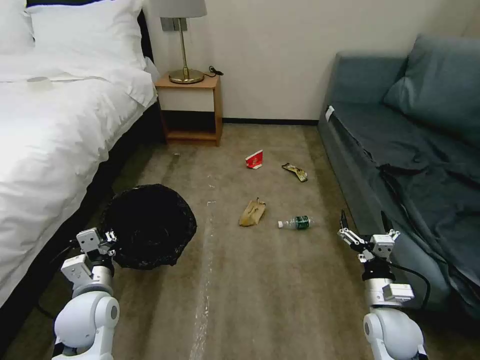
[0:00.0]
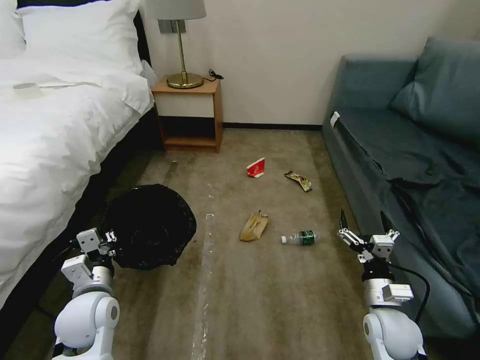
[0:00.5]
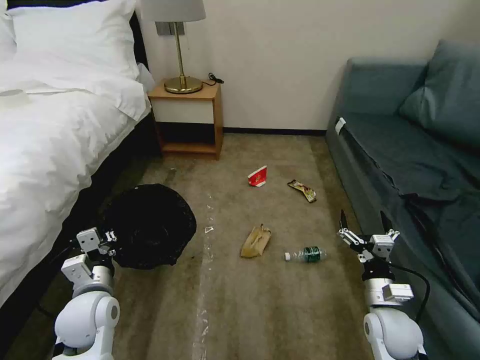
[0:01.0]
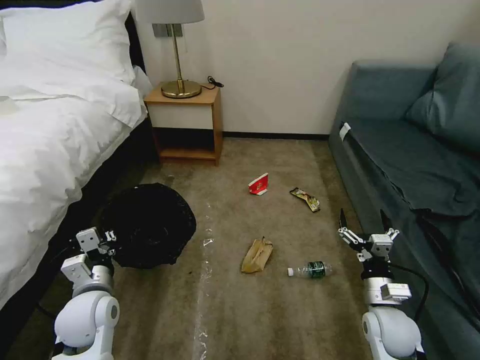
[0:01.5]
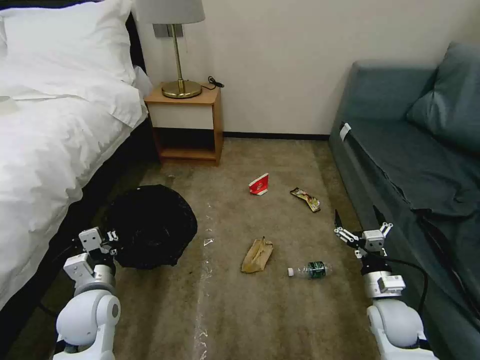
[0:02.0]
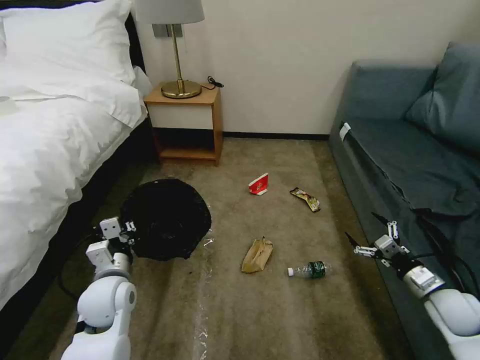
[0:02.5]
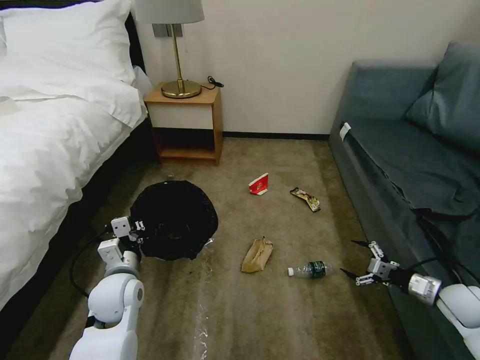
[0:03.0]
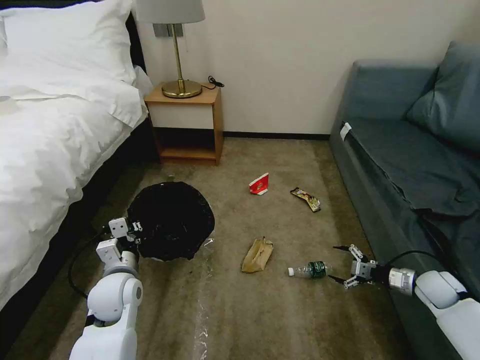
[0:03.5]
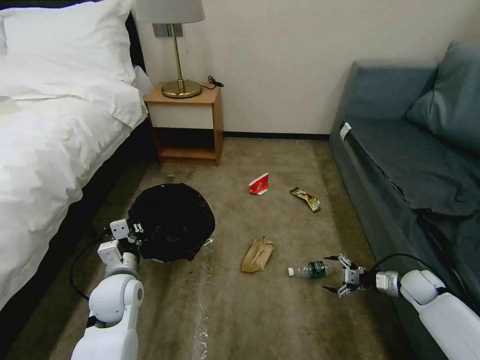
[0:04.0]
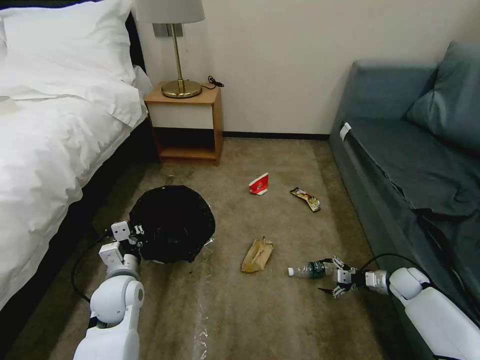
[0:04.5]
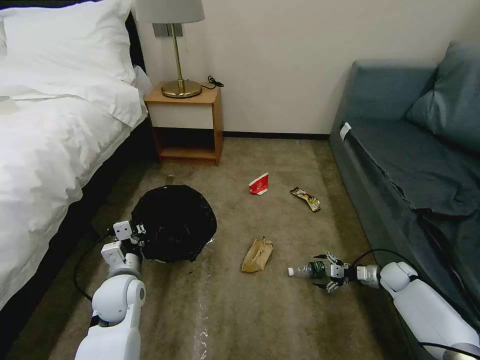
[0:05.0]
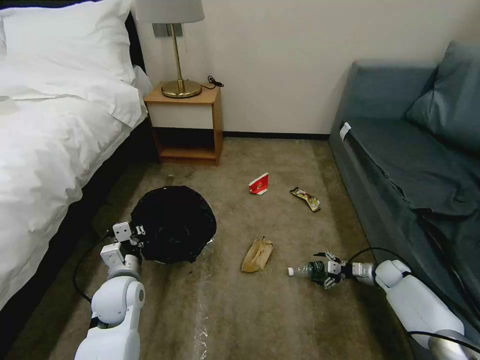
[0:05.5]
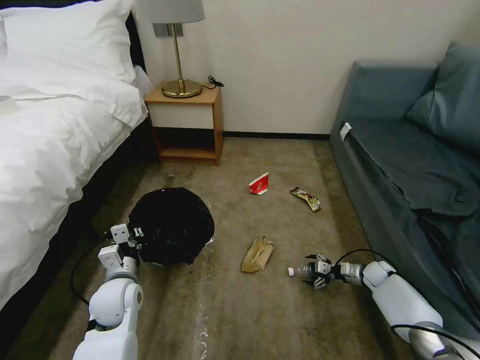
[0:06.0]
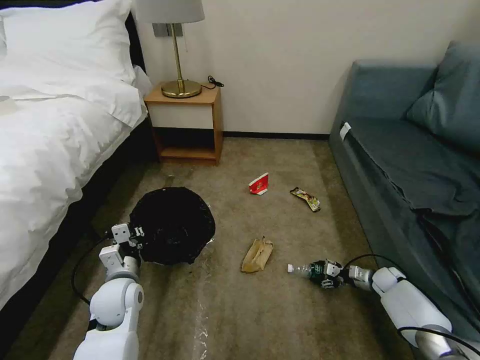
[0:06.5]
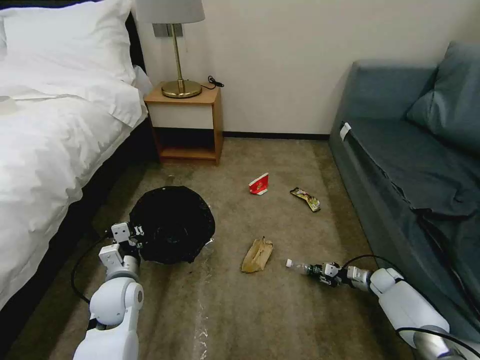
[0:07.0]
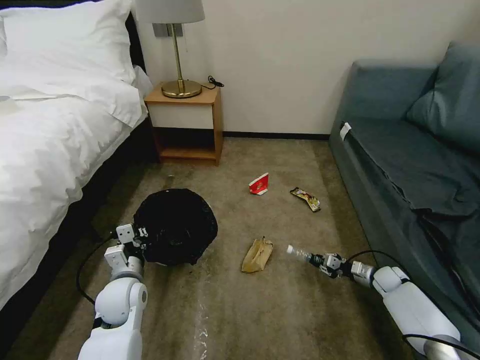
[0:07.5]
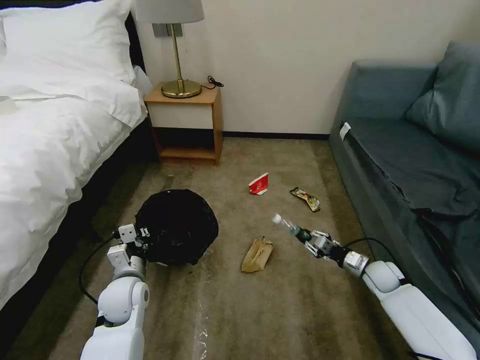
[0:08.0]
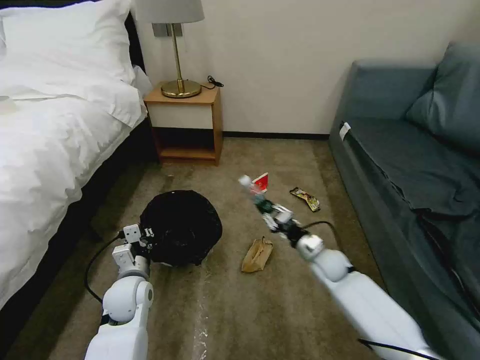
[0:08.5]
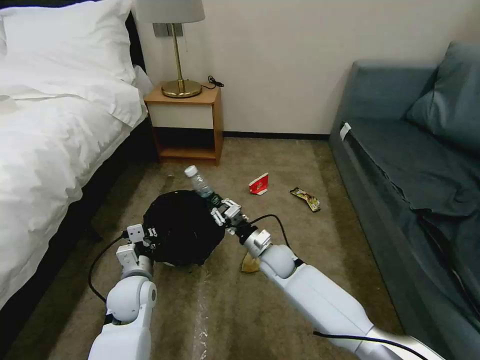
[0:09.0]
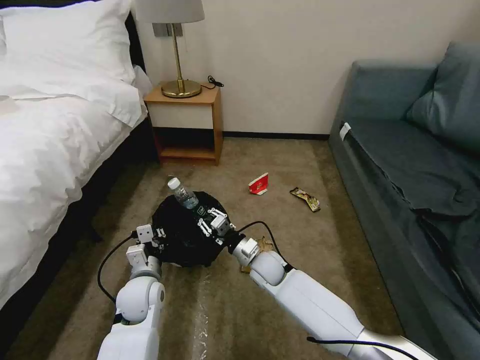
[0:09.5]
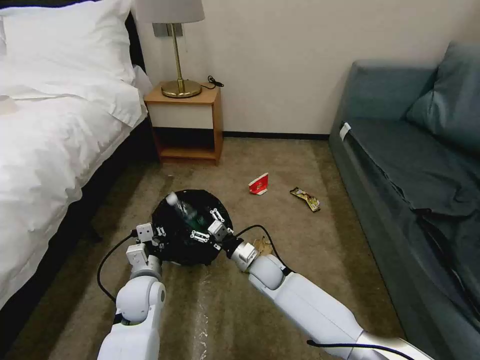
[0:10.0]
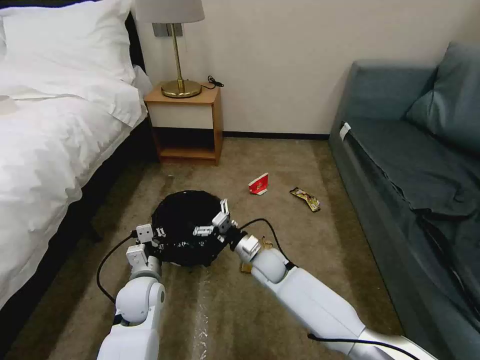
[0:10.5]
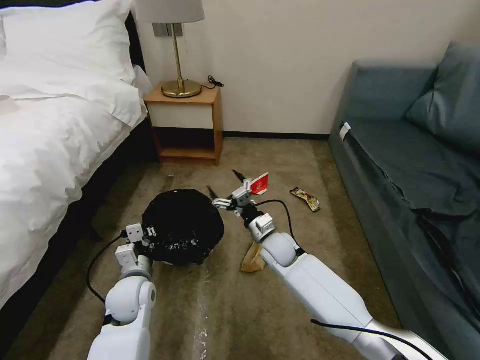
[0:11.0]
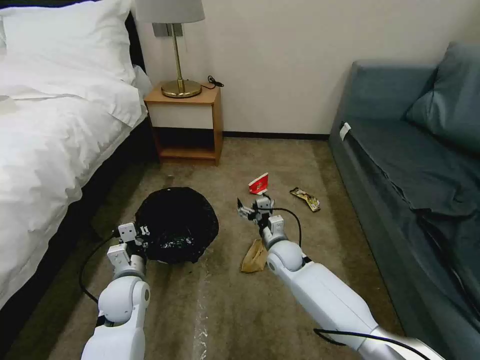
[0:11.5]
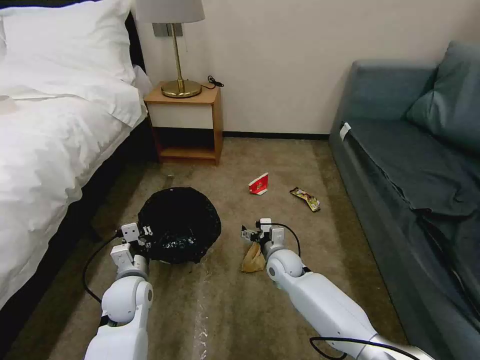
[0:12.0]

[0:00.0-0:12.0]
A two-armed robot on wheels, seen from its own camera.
Task of the whole recording: Pick up the trash bin, then pick up the garbage on the floor and place it into the trash bin.
0:02.0 to 0:04.0: The right gripper shifts approximately 20 cm to the right and forward. Meanwhile the left gripper ends up some 5 cm from where it was.
0:04.0 to 0:06.0: The right gripper moves downward and forward, some 10 cm.
0:06.0 to 0:08.0: The right gripper shifts about 5 cm upward, and closes up.
0:08.0 to 0:10.0: The right gripper moves to the left, approximately 35 cm, and opens.
0:10.0 to 0:12.0: The right gripper is displaced to the right by roughly 5 cm.

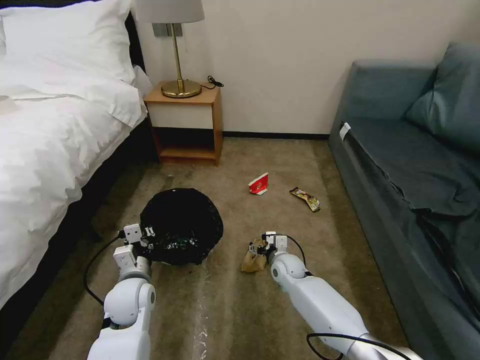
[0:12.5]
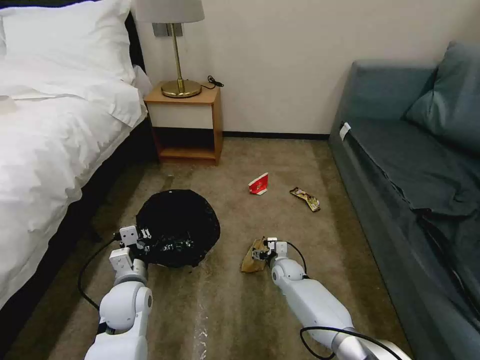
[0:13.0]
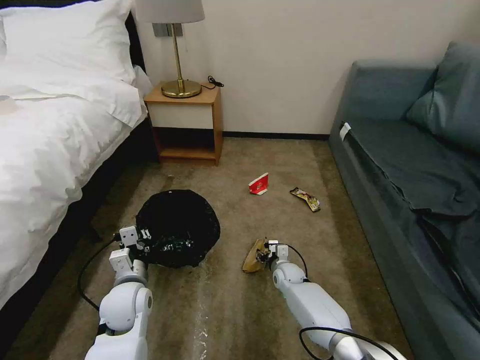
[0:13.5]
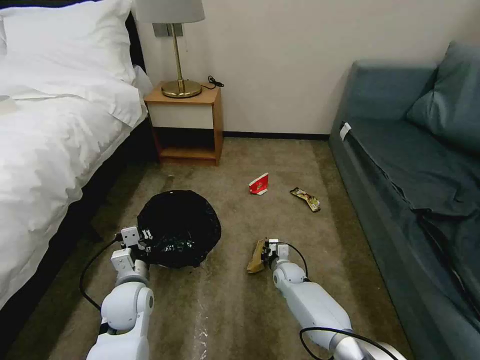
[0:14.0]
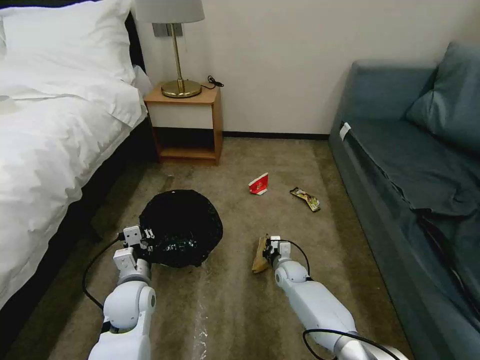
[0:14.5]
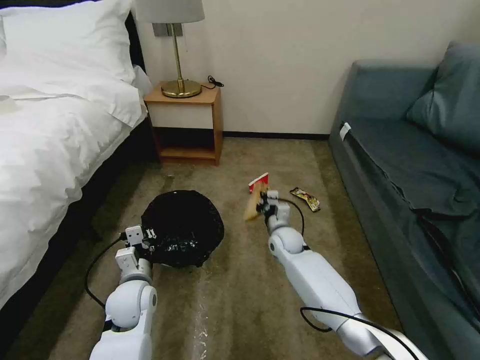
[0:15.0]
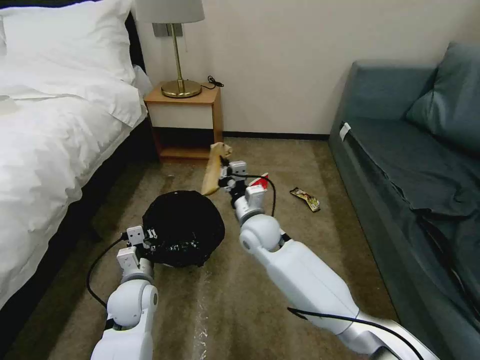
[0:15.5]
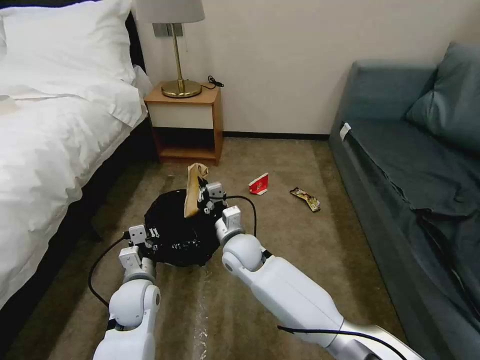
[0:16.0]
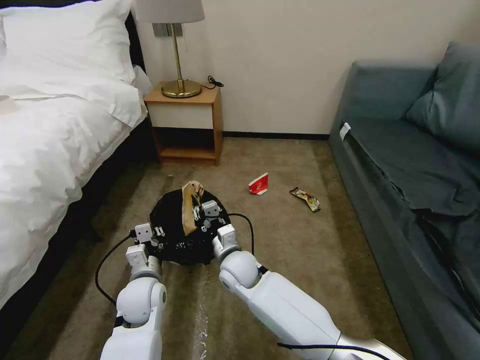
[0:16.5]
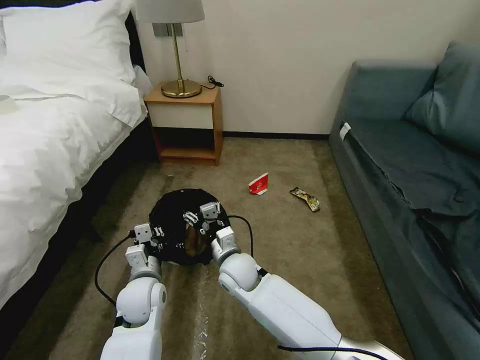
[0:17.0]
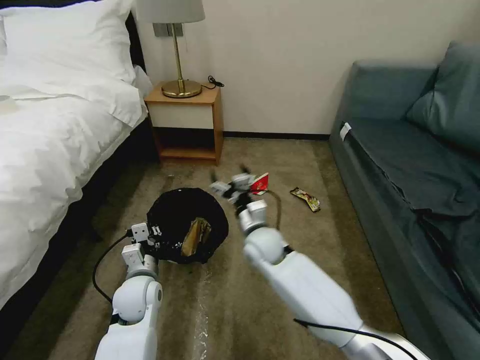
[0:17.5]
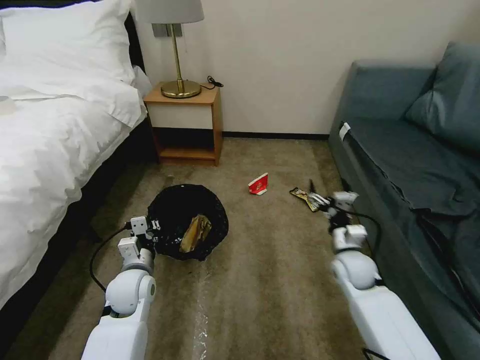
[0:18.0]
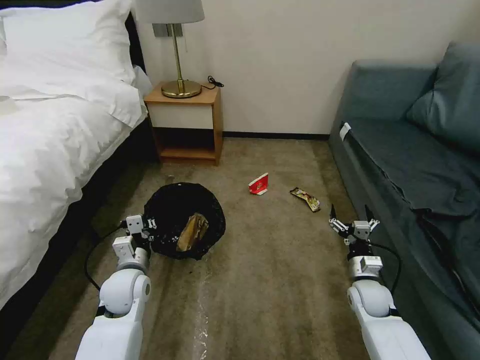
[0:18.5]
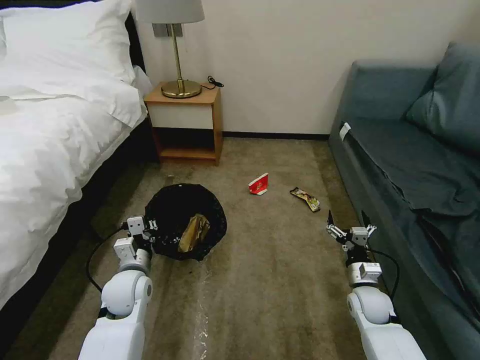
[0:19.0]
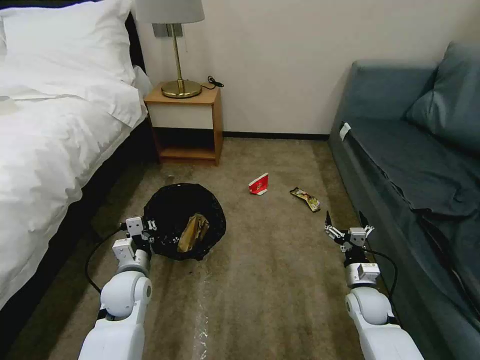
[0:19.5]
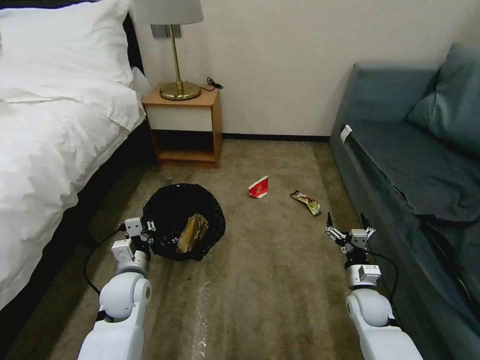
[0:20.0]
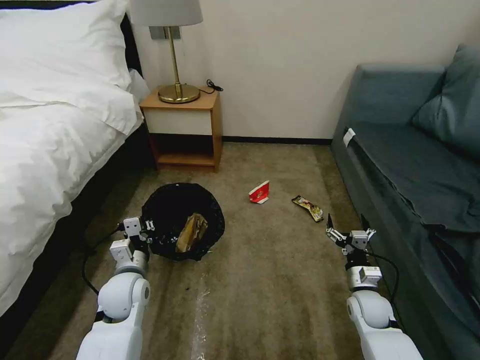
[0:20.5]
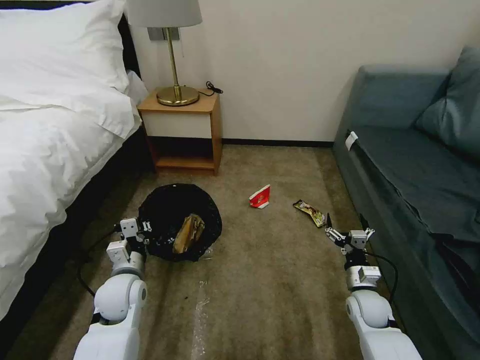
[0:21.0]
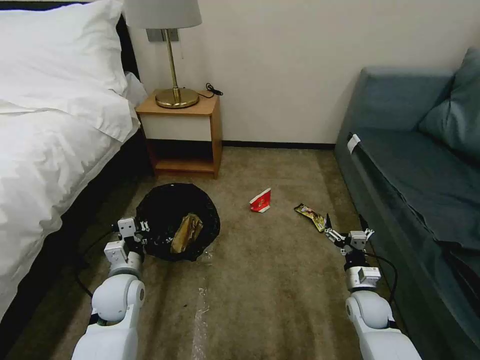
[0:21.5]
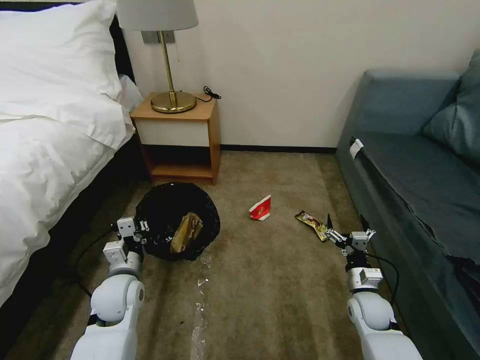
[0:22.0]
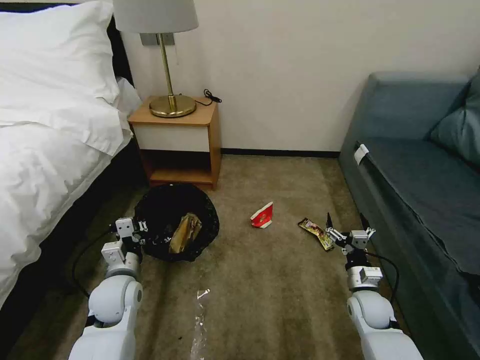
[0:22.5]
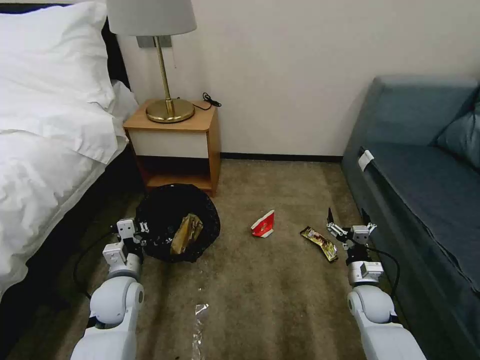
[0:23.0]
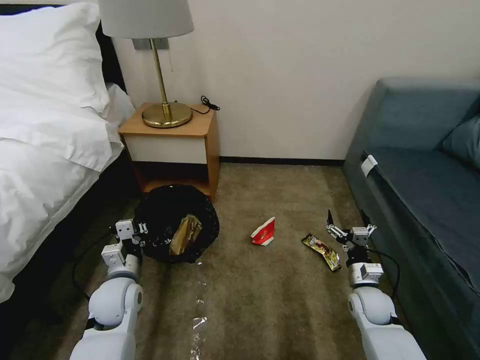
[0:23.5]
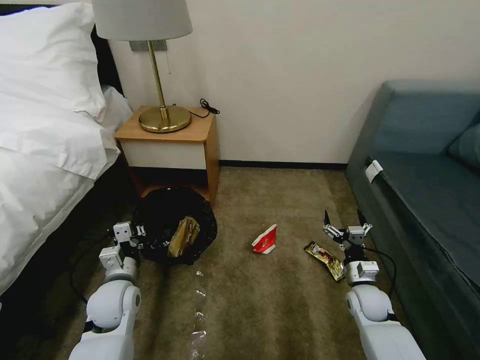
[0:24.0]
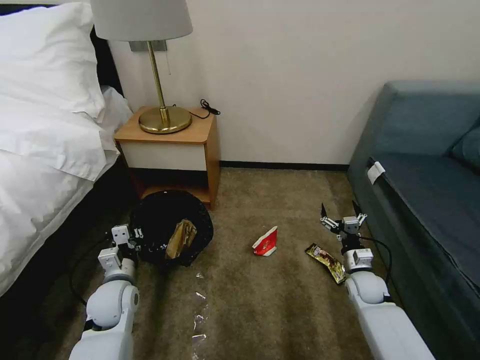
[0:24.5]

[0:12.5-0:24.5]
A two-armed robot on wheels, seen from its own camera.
Task of the whole recording: Pick up the trash bin, then pick up the garbage on the floor and place it into the trash bin.
0:12.5 to 0:14.5: The right gripper heads downward, covering roughly 5 cm, and closes up.
0:14.5 to 0:16.5: The right gripper is displaced to the left and upward by about 25 cm.
0:16.5 to 0:18.5: The right gripper heads to the right, covering approximately 35 cm, and opens.
0:18.5 to 0:20.5: There are only small adjustments of the grippers.
0:22.5 to 0:24.5: The right gripper moves forward, about 5 cm.

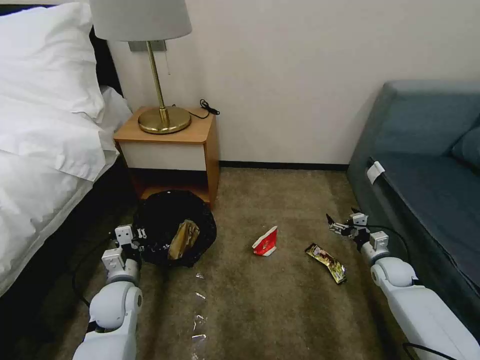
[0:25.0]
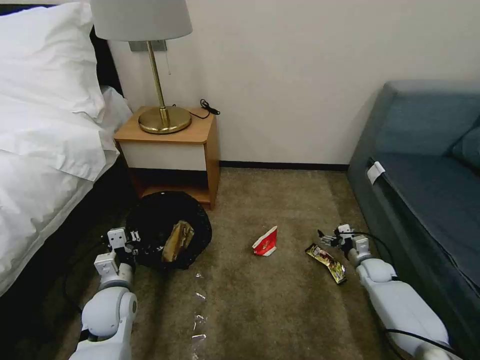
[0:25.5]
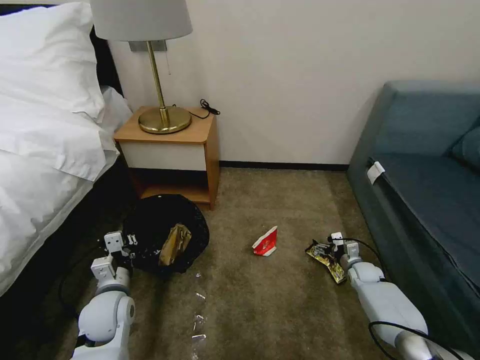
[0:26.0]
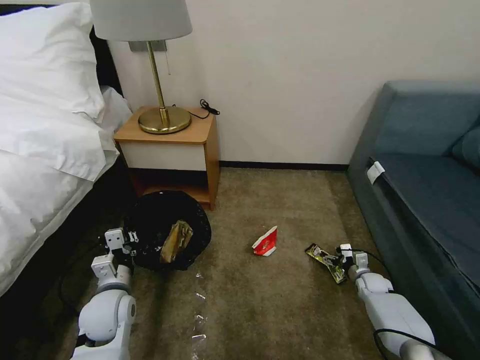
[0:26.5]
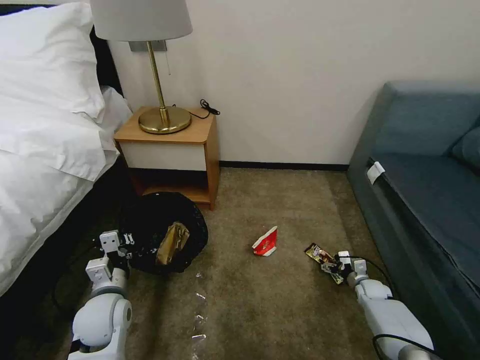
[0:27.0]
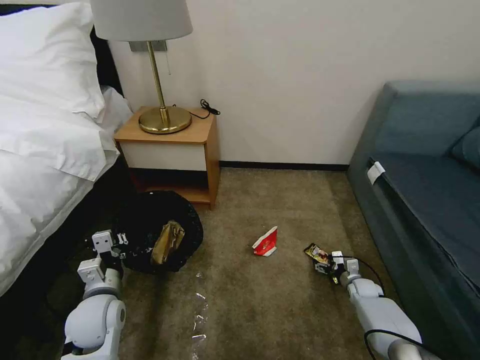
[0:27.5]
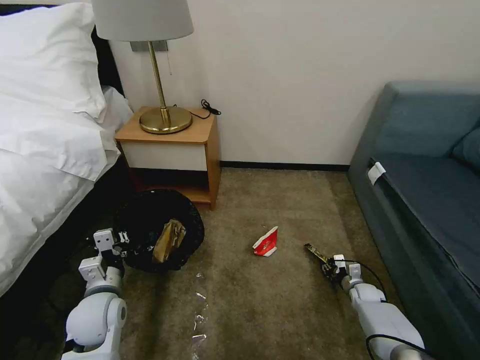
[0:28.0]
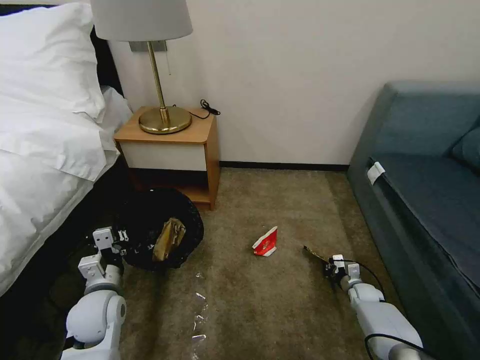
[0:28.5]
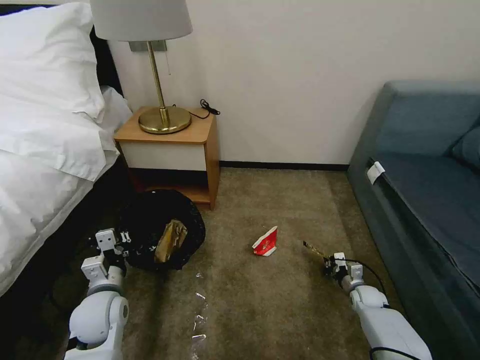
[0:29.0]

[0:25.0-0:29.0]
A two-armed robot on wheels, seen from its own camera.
Task of the whole recording: Pick up the trash bin, then pick up the garbage on the floor and place it into the trash bin.
0:25.0 to 0:27.0: The right gripper heads downward, covering roughly 15 cm.
0:27.0 to 0:29.0: The right gripper closes up.
